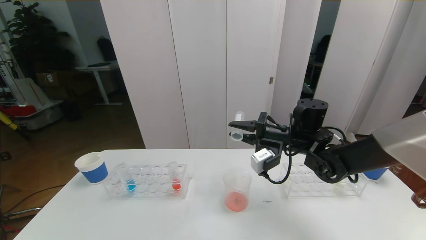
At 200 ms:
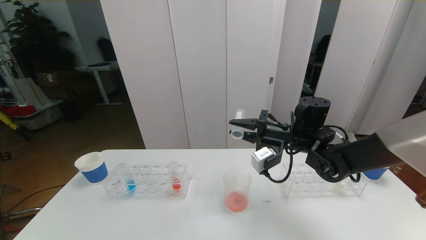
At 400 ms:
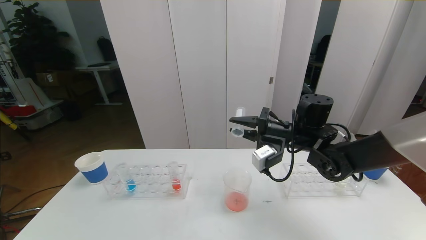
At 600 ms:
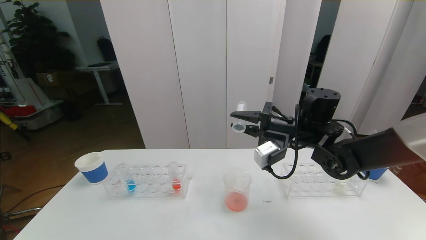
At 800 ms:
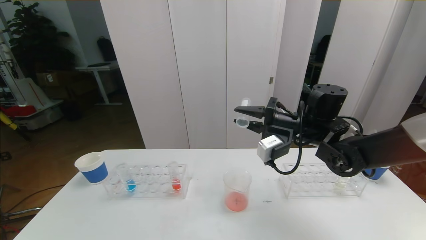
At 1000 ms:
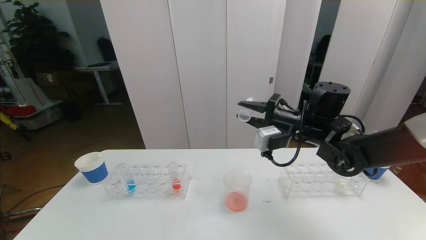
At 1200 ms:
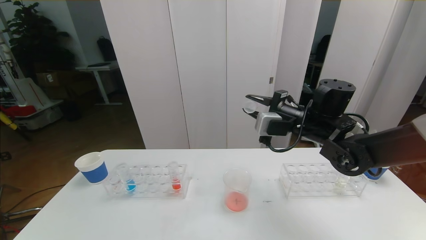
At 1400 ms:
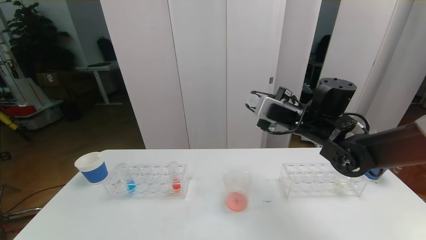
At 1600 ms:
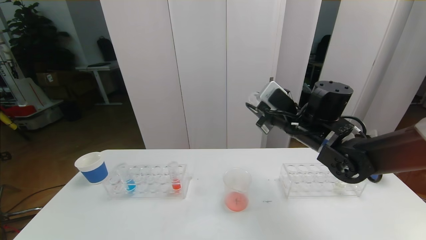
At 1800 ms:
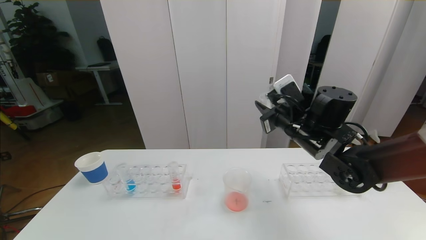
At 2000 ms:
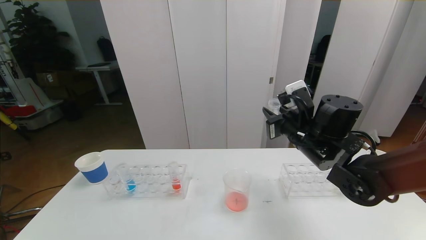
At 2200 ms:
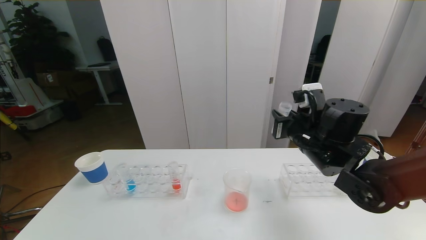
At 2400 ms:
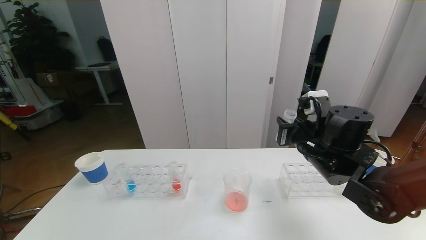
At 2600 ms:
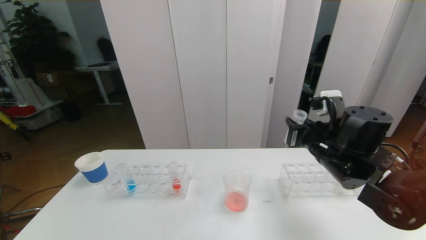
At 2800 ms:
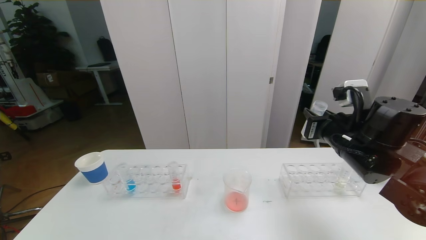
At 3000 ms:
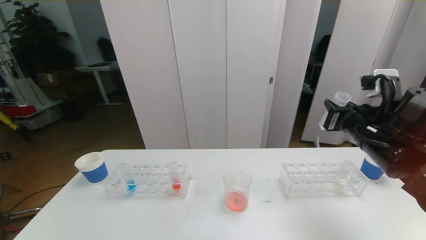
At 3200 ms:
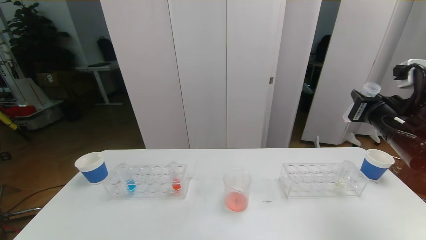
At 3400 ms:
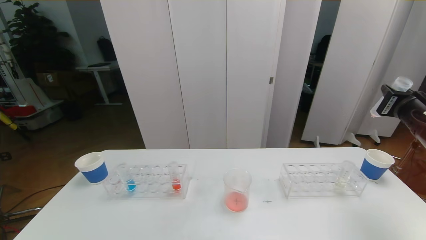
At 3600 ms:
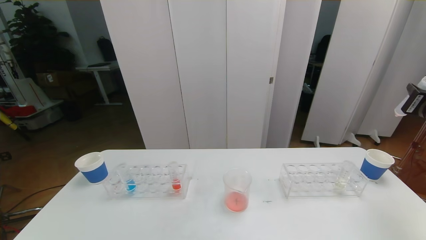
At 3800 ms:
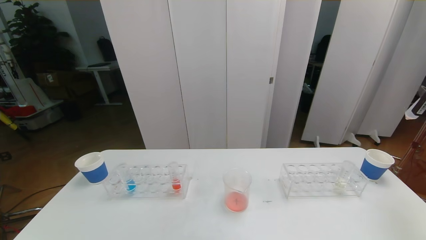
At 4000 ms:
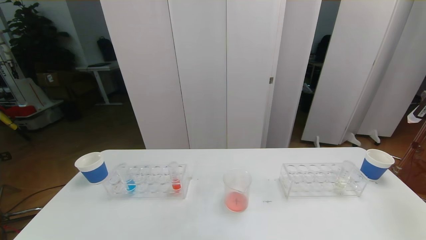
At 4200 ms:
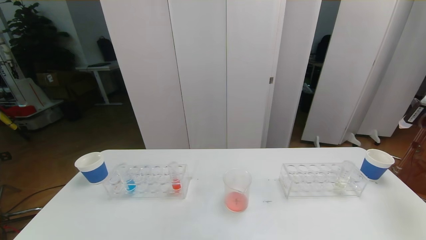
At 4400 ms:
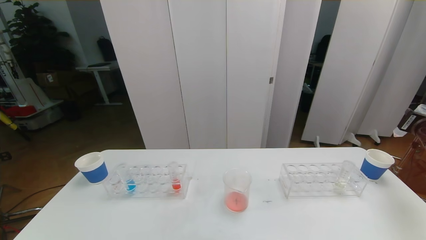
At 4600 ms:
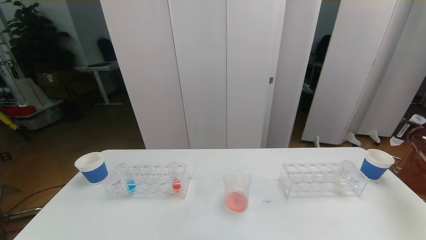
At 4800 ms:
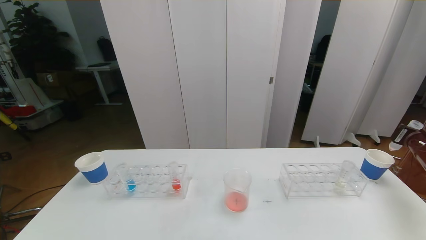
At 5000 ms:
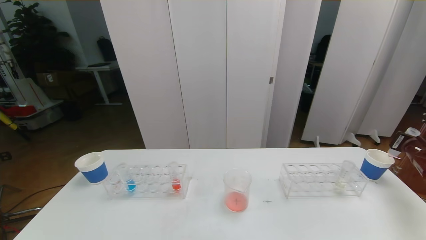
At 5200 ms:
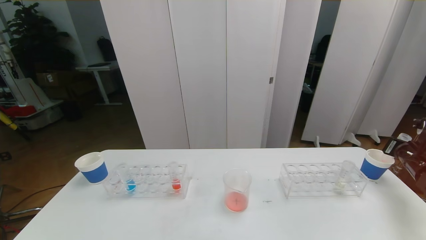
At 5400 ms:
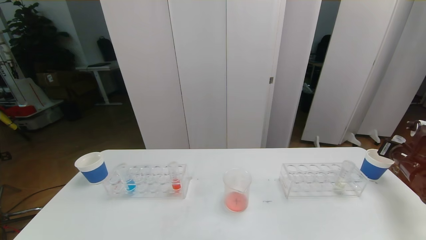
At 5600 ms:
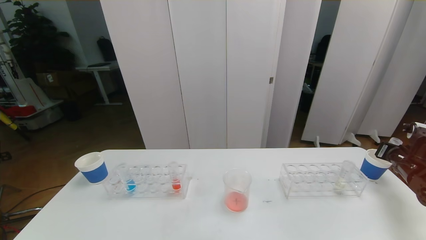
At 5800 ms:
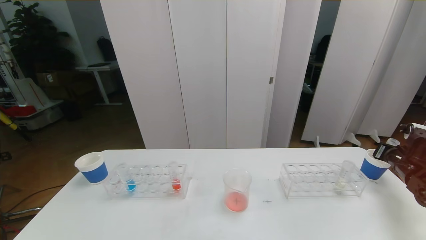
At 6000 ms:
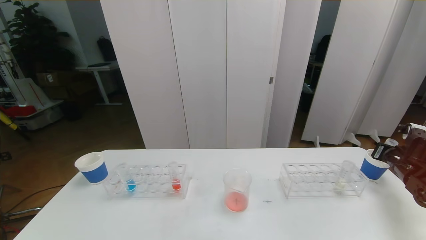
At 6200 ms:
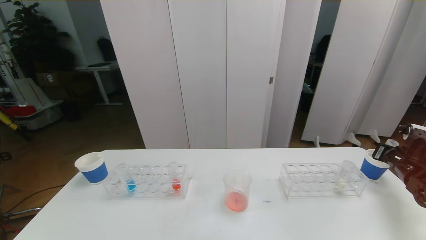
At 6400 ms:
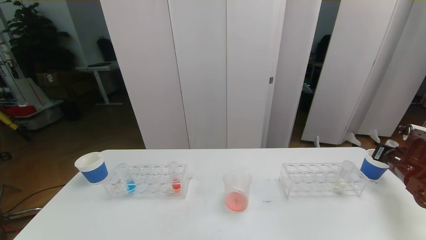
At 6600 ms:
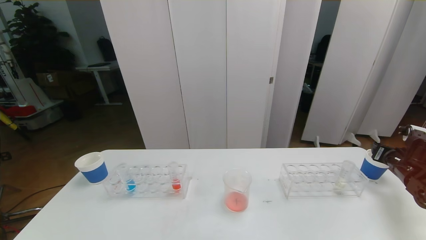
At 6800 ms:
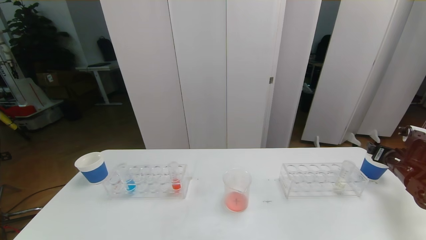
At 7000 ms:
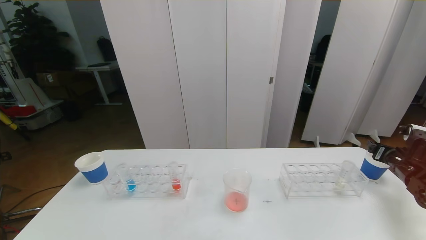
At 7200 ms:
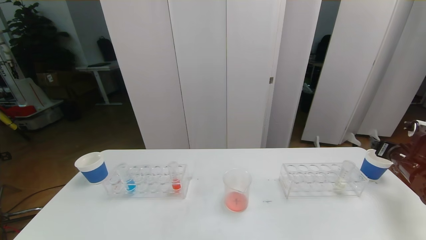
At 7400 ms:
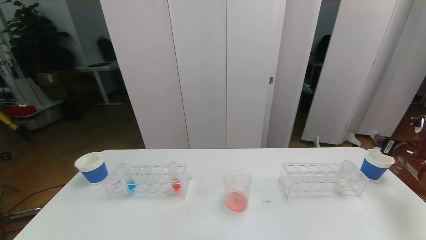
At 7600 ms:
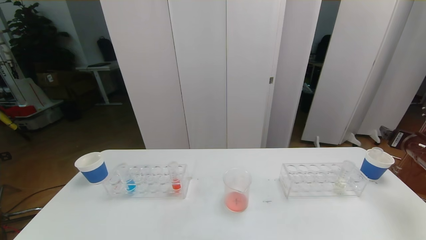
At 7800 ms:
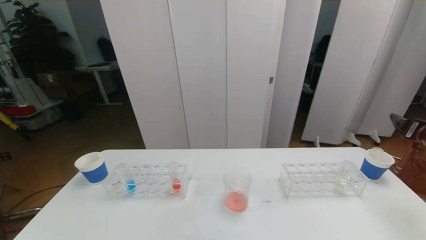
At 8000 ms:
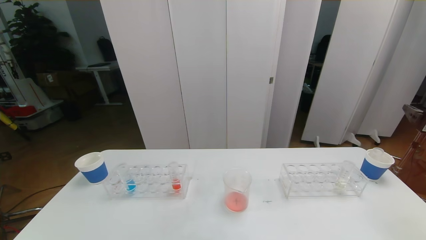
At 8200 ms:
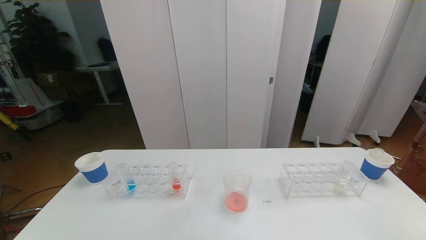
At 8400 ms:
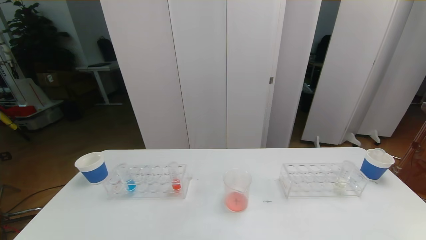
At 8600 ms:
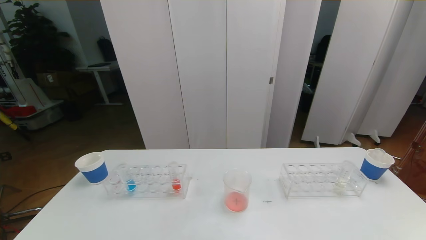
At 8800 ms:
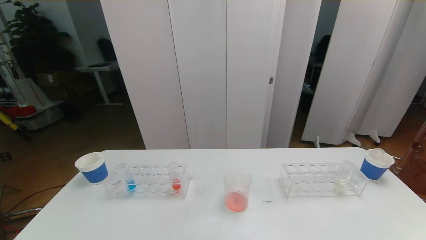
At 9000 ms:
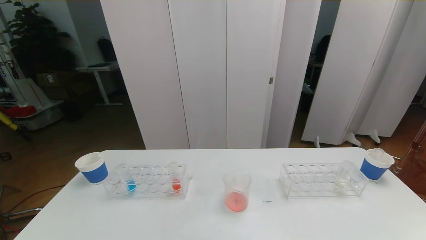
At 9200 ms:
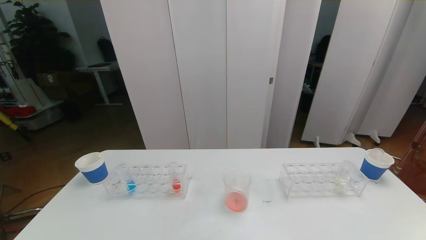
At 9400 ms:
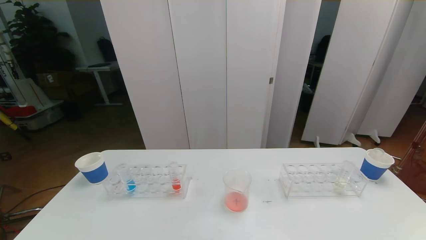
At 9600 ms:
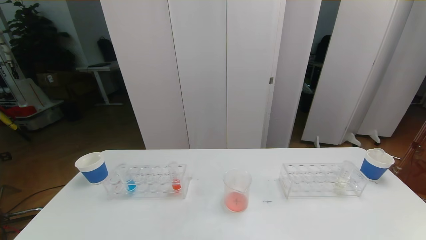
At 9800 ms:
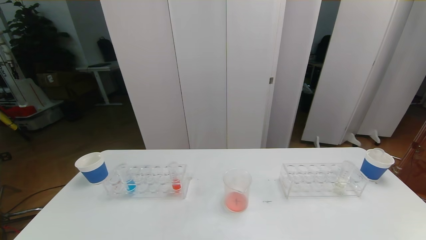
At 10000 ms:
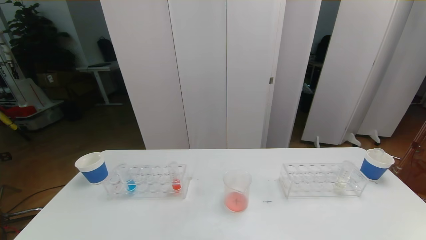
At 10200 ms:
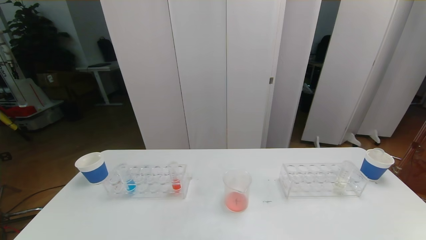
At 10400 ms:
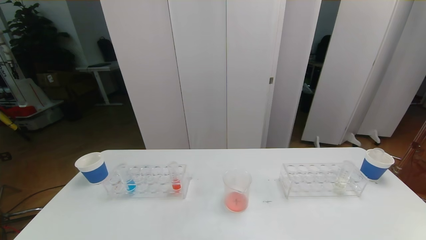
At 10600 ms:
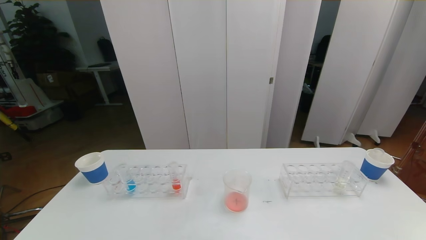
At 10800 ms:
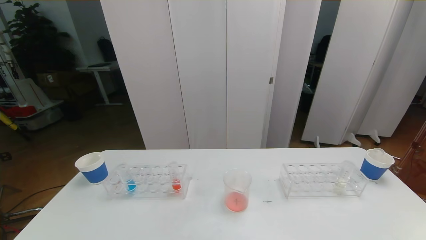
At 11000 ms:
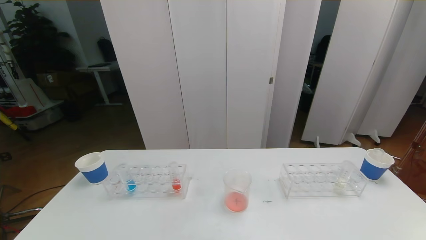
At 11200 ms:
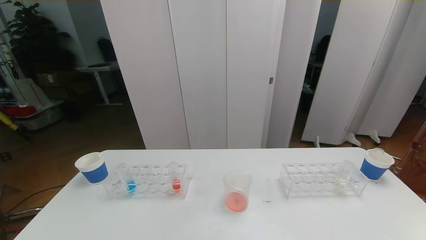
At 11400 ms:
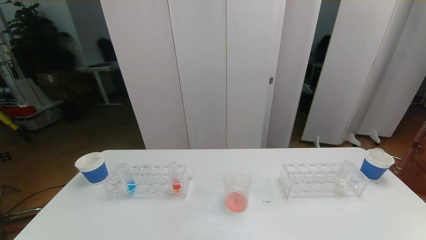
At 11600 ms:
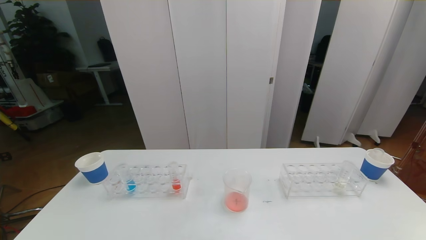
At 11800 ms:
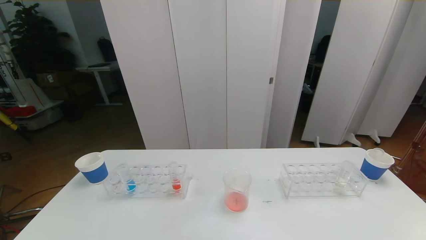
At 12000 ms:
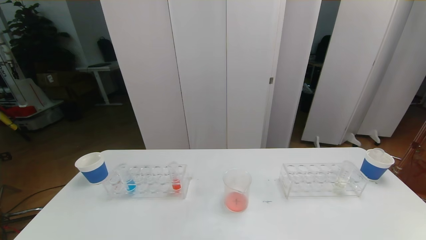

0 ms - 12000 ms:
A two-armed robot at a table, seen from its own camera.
Task of the whole recording: pick up the test tube with red pigment the test tube with blue pigment and the test tube with white pigment by grippers and pour them into the beaker.
Step, 0 ms - 10600 ms: Pour the red reagent into the graduated cylinder and place the test tube into the paper cup.
0 ms - 1600 ms: The right gripper changes place by about 5 cm.
1600 ms - 3000 ms: The right gripper heads to the right and backward, covering approximately 15 cm.
3000 ms - 4400 ms: The right gripper heads to the right, covering about 20 cm.
4400 ms - 6000 ms: The right gripper moves downward, about 10 cm.
6000 ms - 7600 ms: The right gripper shifts roughly 5 cm upward, and opens up.
7600 ms - 9000 ms: The right gripper travels backward by roughly 30 cm.
10400 ms - 12000 ms: The two grippers keep their place.

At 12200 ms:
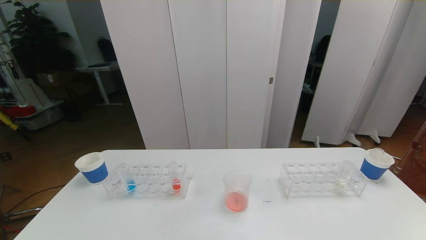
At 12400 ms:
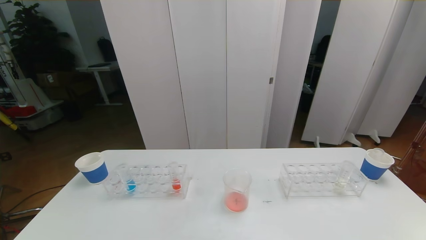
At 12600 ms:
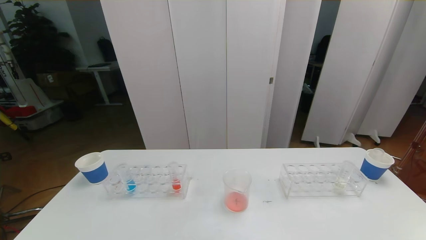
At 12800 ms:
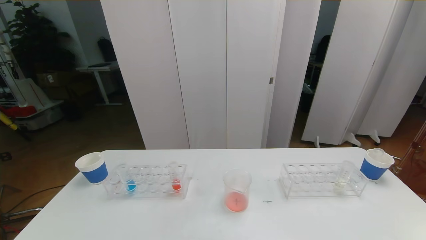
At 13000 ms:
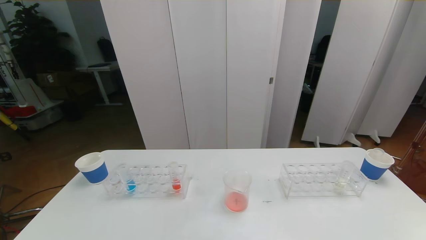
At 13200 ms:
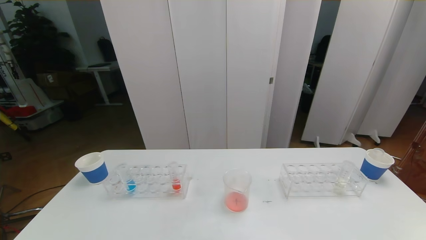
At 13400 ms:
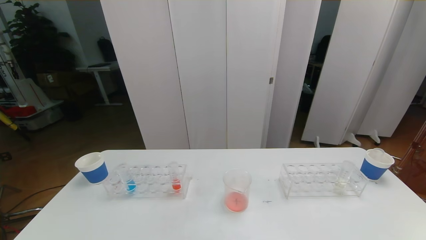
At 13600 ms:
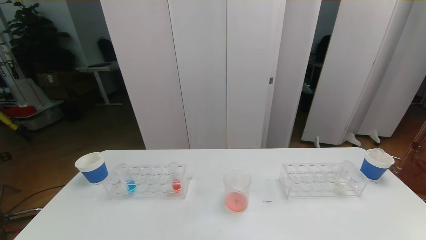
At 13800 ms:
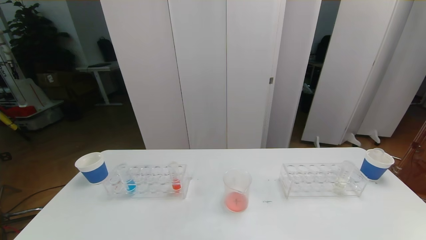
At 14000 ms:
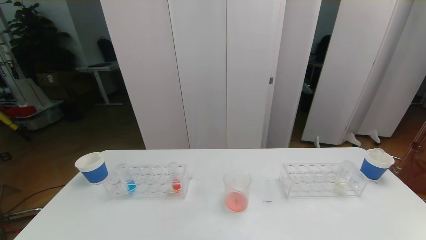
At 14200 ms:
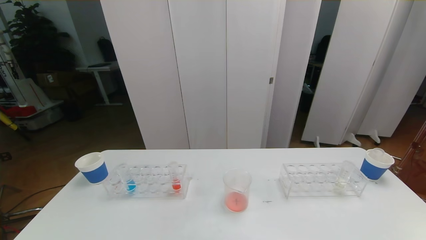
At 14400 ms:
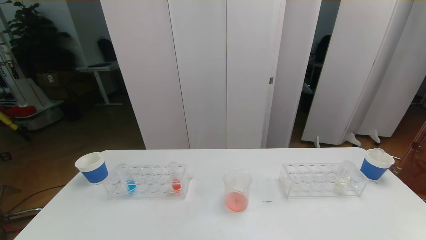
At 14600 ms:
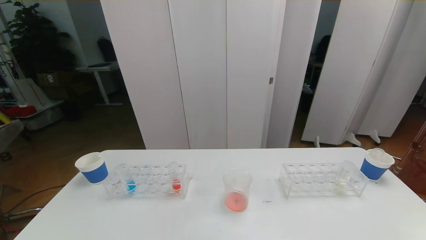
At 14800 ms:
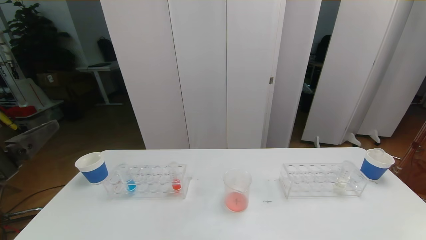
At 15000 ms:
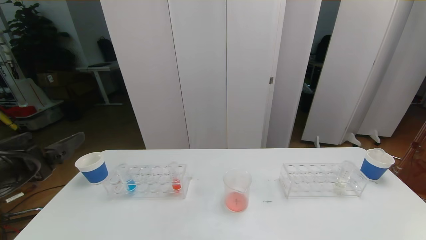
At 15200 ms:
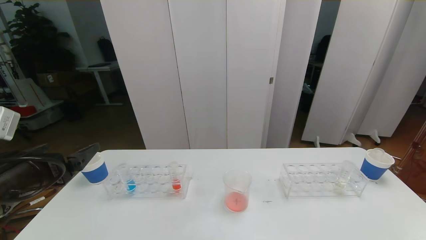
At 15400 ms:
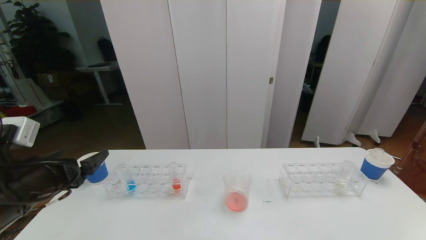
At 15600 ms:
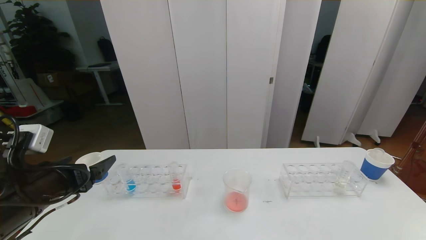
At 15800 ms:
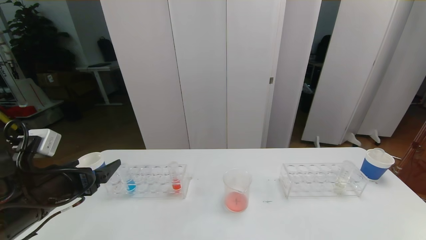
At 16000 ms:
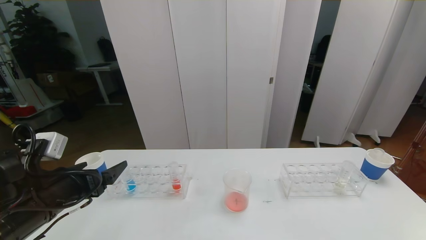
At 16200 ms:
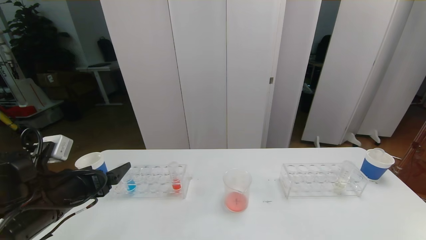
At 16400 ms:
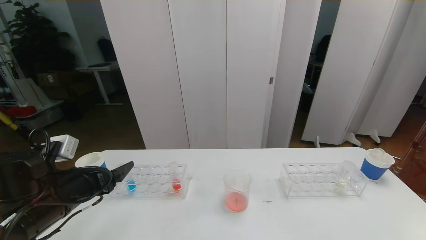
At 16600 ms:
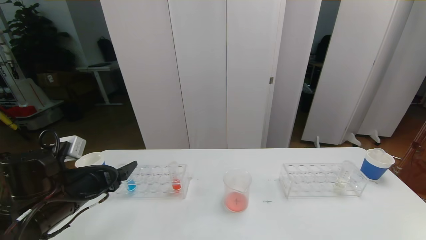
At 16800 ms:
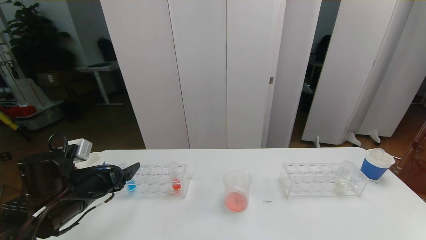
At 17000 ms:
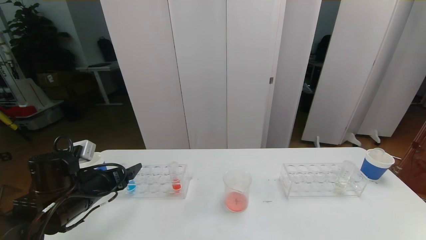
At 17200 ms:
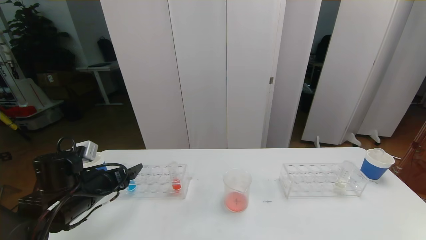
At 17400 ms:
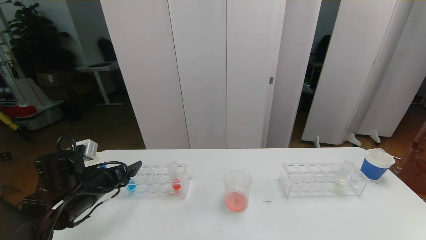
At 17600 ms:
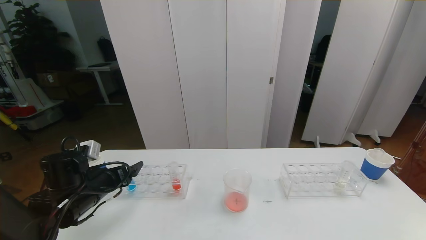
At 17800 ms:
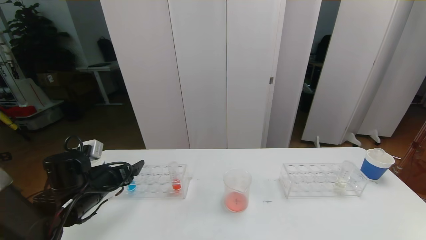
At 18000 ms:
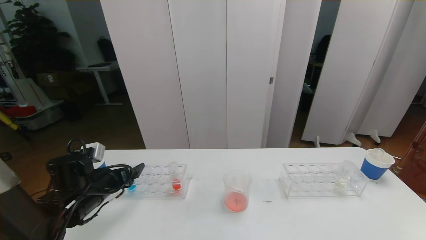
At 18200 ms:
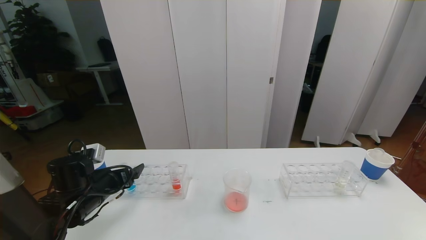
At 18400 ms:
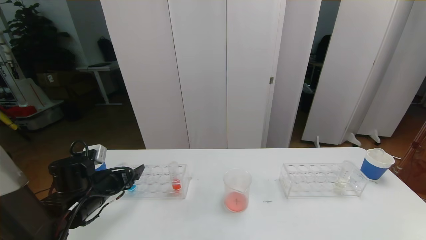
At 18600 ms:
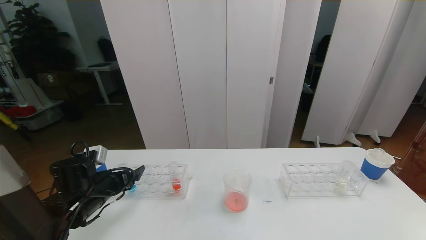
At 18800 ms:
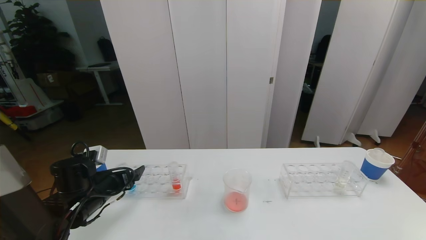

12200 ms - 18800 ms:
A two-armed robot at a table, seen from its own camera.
Task of the whole recording: pick up the test tube with red pigment the test tube with blue pigment and the test tube with white pigment by grippers and pour them into the beaker.
13800 ms - 15400 ms: The left gripper goes about 25 cm forward.
15400 ms - 17200 ms: The left gripper travels downward and forward by some 10 cm.
17200 ms - 18800 ms: The grippers make only small movements.
